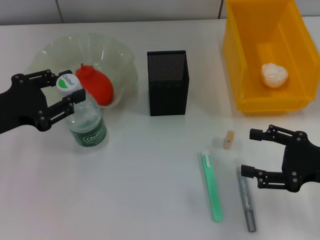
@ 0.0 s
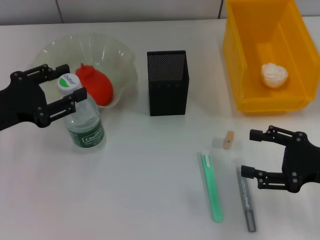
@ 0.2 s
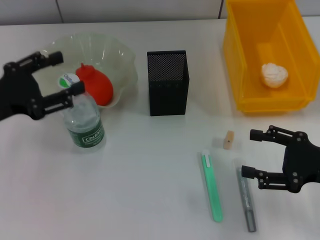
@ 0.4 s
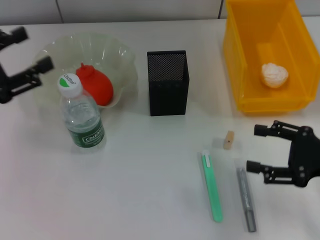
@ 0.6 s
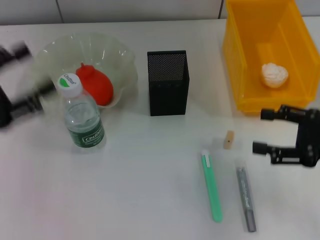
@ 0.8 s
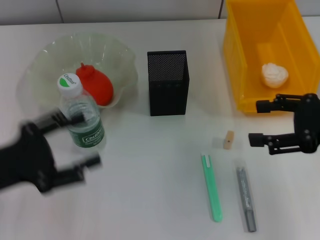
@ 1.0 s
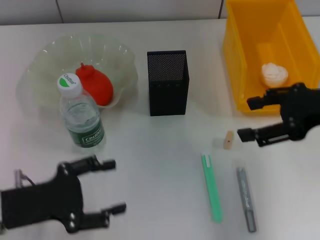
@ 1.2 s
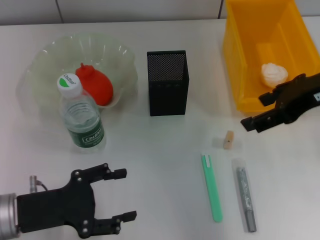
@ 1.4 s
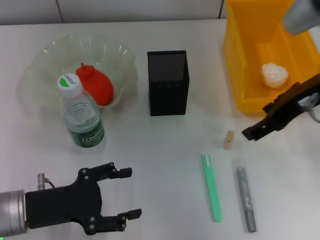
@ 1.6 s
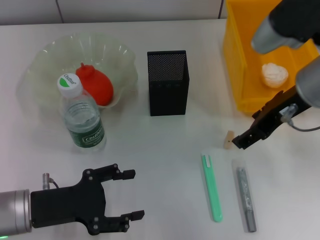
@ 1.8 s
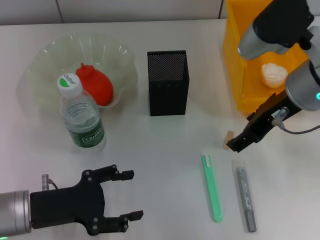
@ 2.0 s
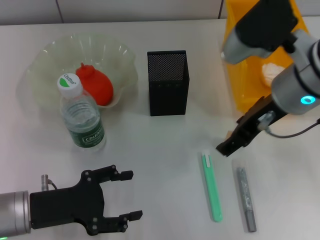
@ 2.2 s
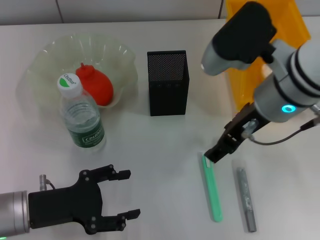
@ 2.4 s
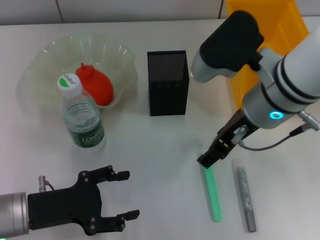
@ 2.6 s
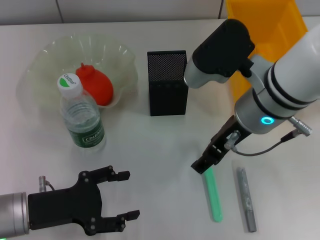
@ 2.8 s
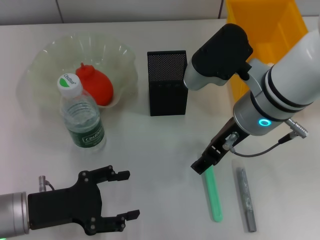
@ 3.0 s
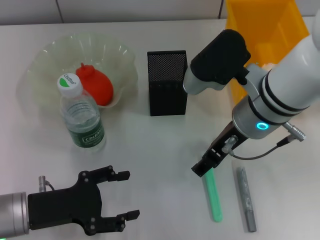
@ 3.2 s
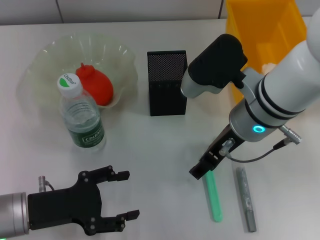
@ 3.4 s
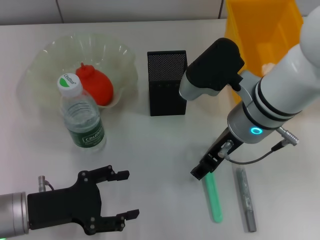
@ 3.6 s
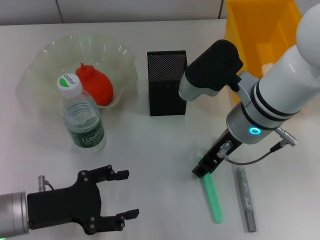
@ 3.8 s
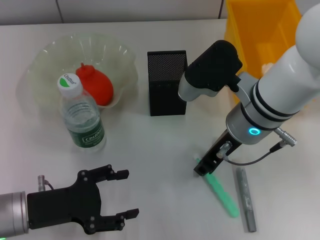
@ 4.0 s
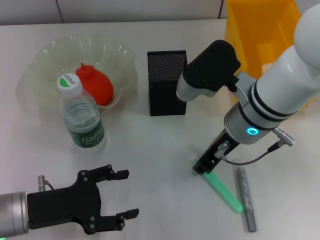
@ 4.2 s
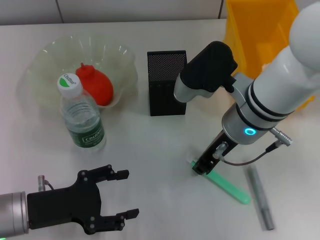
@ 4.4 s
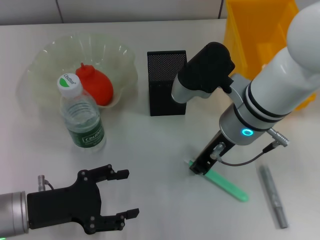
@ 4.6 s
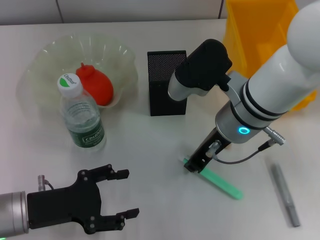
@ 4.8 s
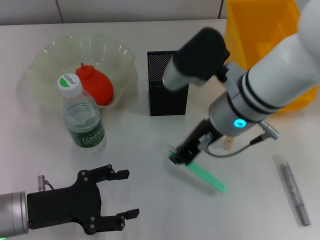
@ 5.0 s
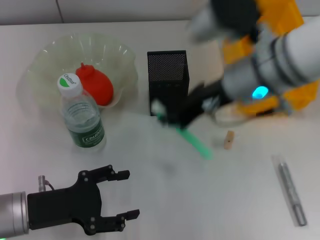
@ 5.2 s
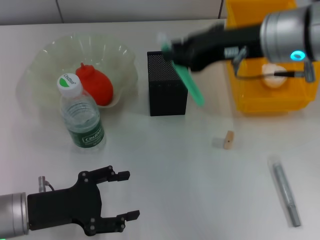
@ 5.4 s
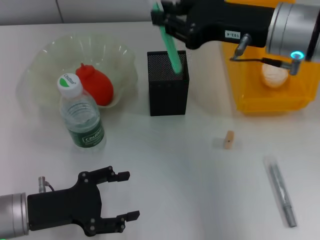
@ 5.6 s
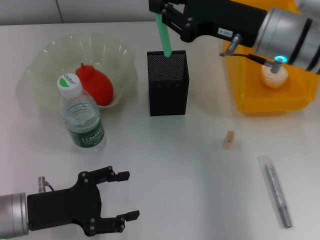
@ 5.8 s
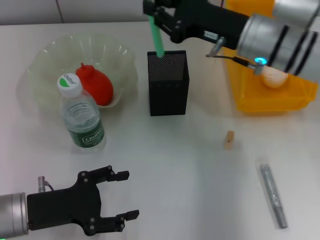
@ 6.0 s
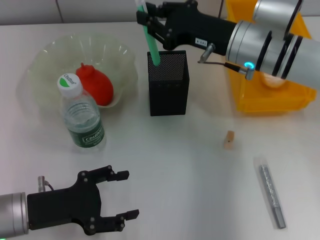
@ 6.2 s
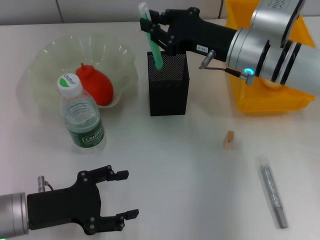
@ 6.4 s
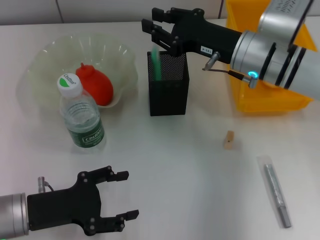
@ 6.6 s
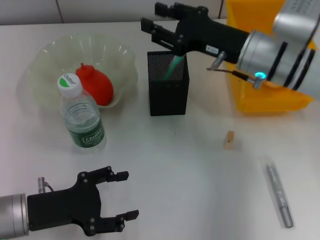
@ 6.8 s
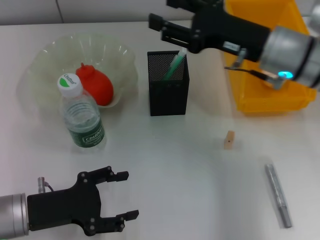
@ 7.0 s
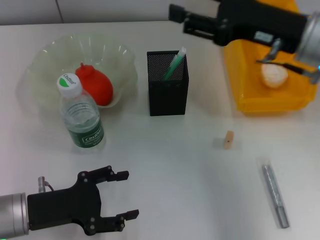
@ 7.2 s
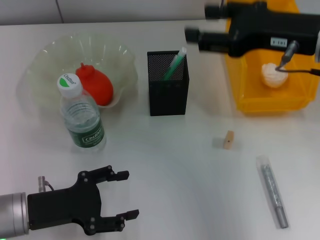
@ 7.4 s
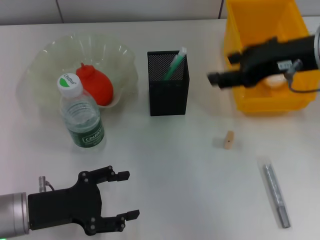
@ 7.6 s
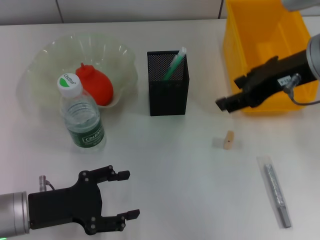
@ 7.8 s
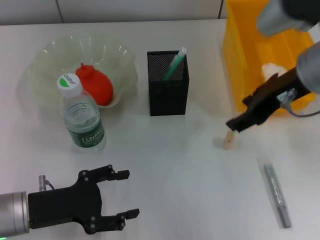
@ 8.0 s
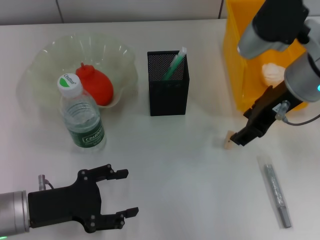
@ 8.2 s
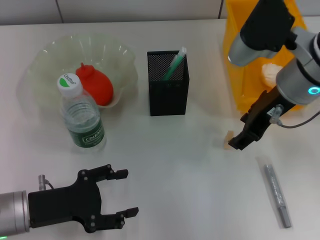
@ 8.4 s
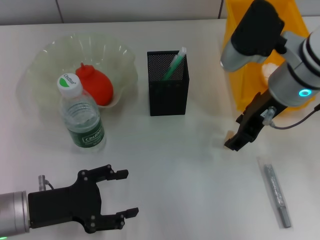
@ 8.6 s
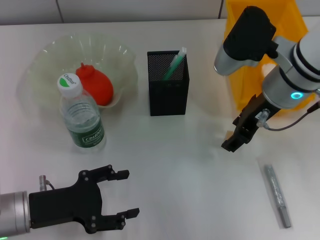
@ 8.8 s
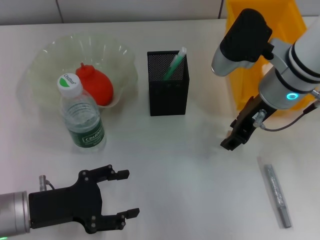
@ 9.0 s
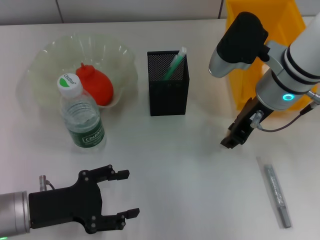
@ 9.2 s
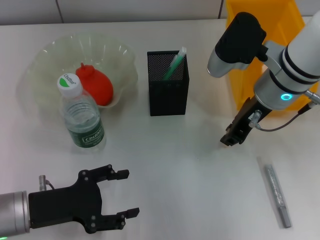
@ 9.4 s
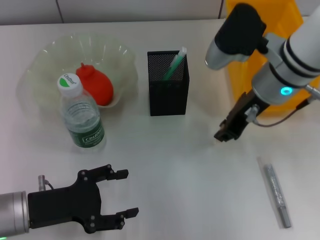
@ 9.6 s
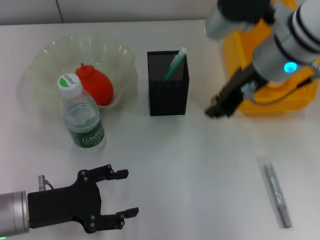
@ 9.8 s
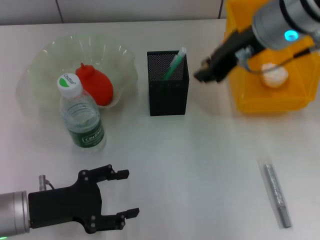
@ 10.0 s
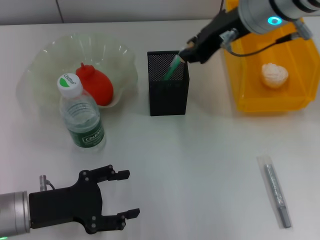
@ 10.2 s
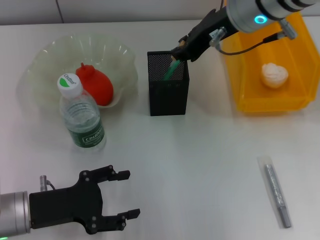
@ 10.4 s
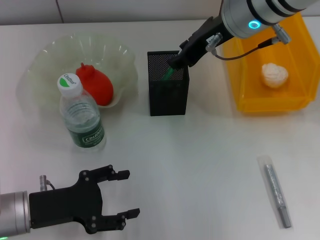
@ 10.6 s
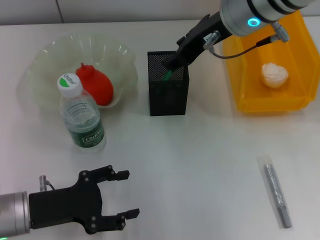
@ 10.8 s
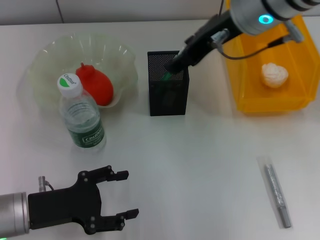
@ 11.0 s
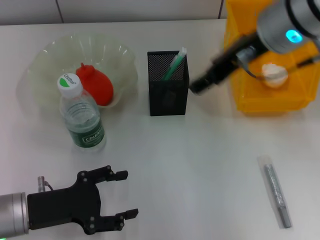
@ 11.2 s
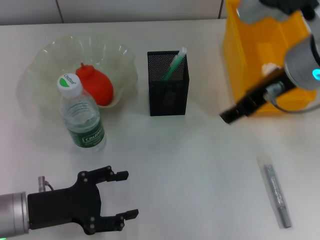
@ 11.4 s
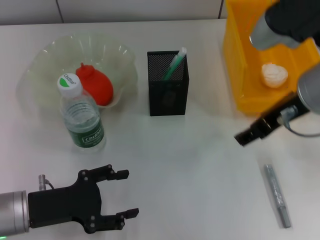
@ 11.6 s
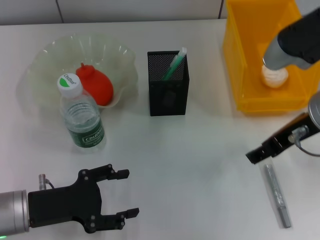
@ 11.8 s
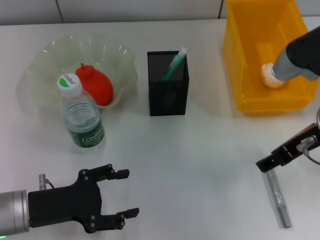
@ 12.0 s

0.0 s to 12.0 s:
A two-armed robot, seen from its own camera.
Step, 0.4 to 4.4 s: Grab the blue utility knife with the right hand.
Step, 4.6 to 6.6 s: Place the blue utility knife into the pen holder with the right hand.
Step, 6.8 to 9.2 s: Grab the eraser with the right hand.
Step, 9.4 to 10.8 s: Put the eraser into the pen holder with the right hand.
0.0 to 1.6 s: The left gripper moves downward and backward, roughly 10 cm, and opens its fingers, while the right gripper is displaced upward, forward and to the left by some 20 cm.
1.6 to 3.0 s: The right gripper heads to the left and downward, covering roughly 10 cm.
3.0 to 4.4 s: The right gripper closes.
4.4 to 6.0 s: The right gripper goes some 5 cm forward, and travels upward and back again, about 10 cm each way.
6.0 to 7.6 s: The right gripper shifts some 10 cm upward, backward and to the right, and opens its fingers.
7.6 to 9.0 s: The right gripper moves downward, approximately 10 cm.
9.0 to 10.4 s: The right gripper travels upward by about 10 cm, and closes its fingers.
10.4 to 12.0 s: The right gripper goes about 15 cm backward, to the right and downward, and opens.

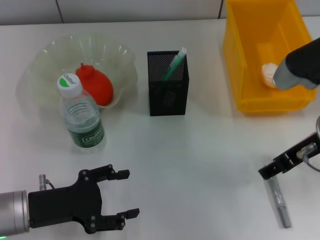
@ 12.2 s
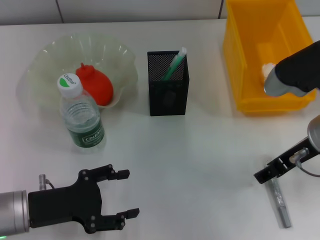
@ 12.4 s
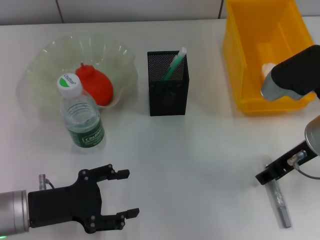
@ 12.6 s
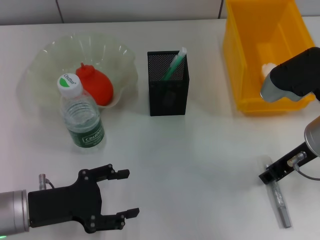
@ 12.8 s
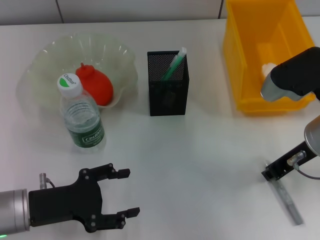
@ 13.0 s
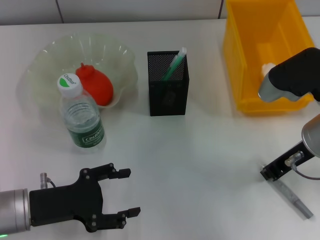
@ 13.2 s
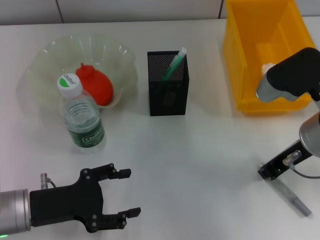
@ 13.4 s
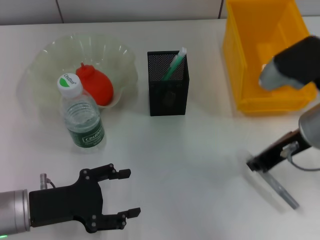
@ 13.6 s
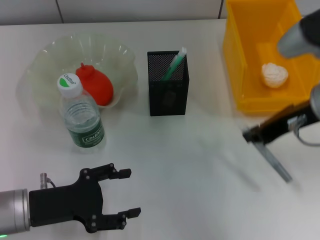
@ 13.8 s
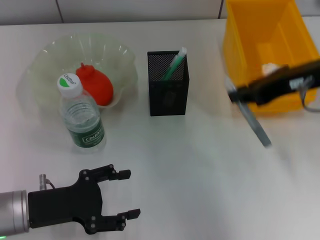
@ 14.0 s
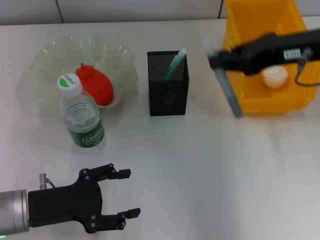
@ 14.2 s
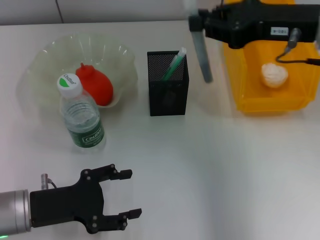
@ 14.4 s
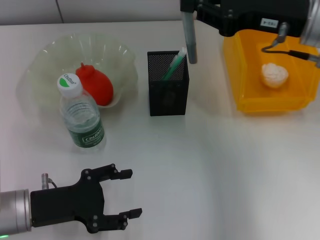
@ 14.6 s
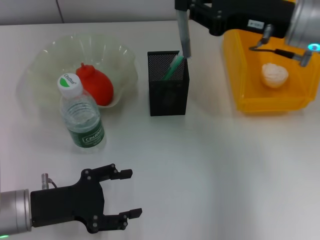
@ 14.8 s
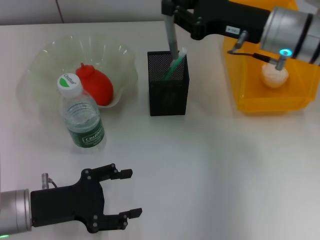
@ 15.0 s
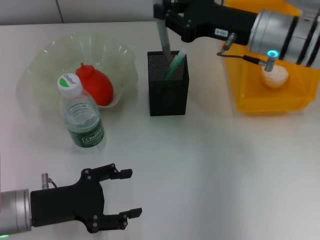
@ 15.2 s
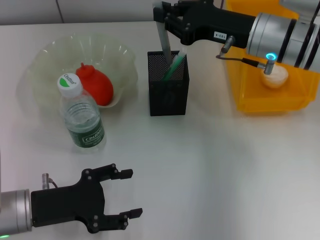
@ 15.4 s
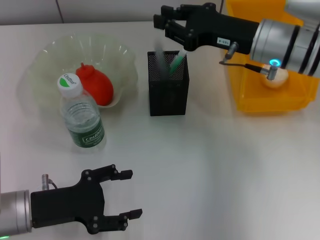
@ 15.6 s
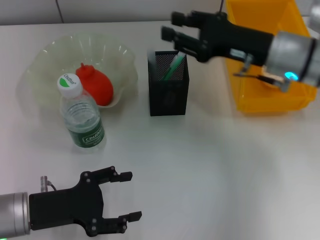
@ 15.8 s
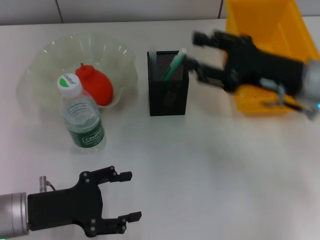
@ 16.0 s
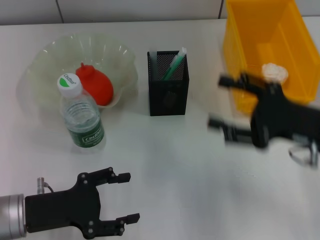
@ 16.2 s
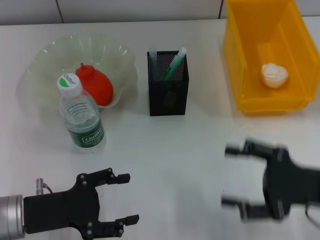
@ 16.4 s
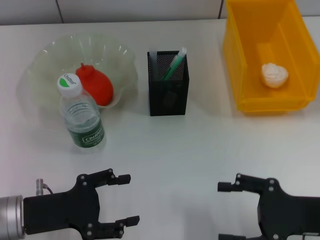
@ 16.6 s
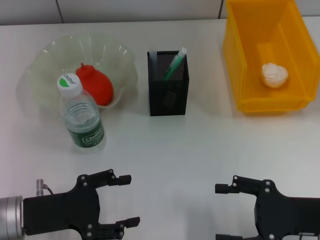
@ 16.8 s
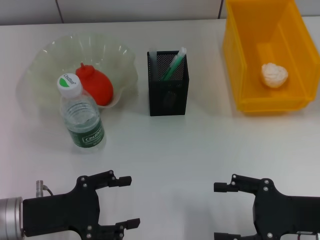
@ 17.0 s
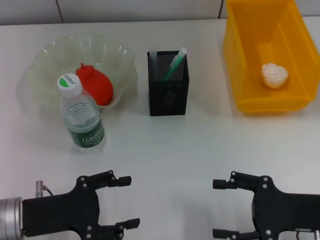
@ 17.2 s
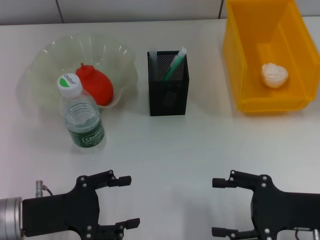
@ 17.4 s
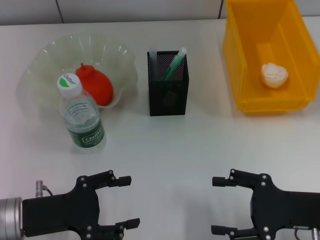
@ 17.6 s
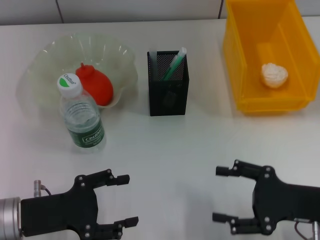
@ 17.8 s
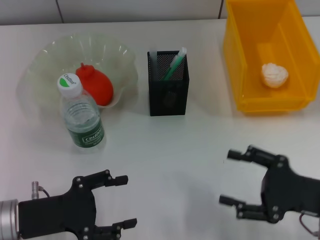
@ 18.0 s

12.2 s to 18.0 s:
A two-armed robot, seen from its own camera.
Step, 13.2 to 15.4 s: Place the gray glue into the pen holder with the right hand.
12.2 to 13.6 s: The right gripper closes up.
13.6 to 15.0 s: The right gripper moves forward, approximately 10 cm.
15.0 to 16.6 s: The right gripper goes some 25 cm backward, downward and to the right, and opens up.
16.6 to 18.0 s: The grippers make only small movements.
